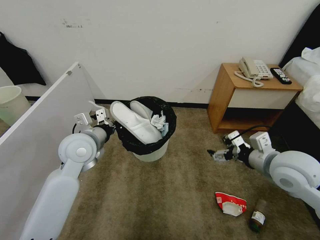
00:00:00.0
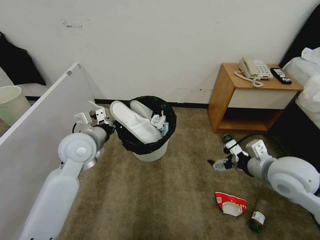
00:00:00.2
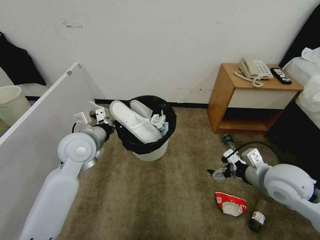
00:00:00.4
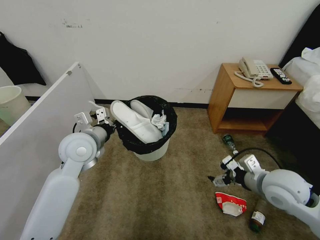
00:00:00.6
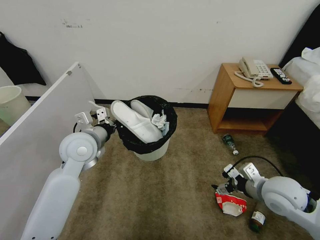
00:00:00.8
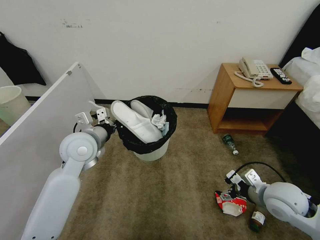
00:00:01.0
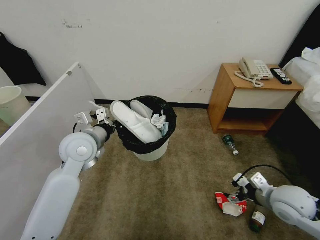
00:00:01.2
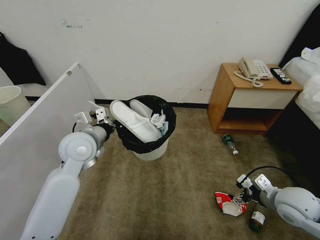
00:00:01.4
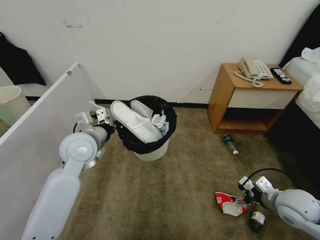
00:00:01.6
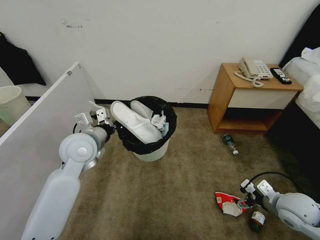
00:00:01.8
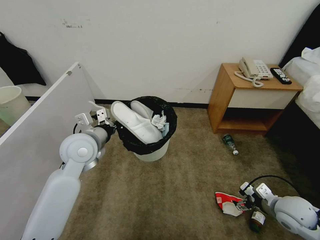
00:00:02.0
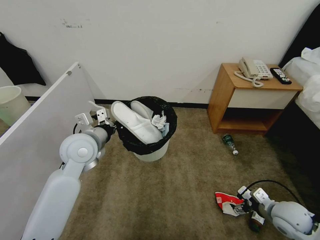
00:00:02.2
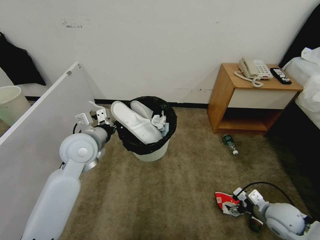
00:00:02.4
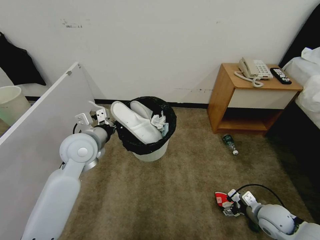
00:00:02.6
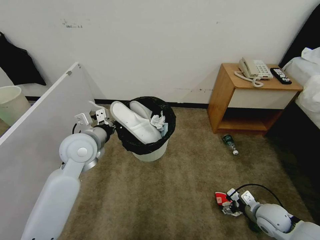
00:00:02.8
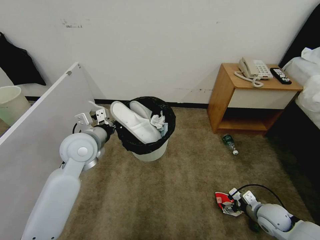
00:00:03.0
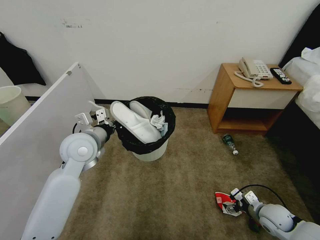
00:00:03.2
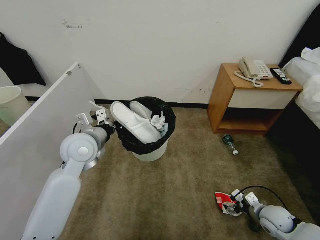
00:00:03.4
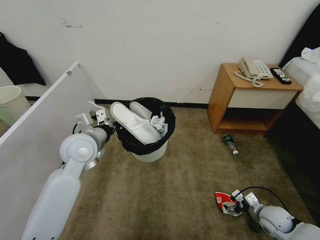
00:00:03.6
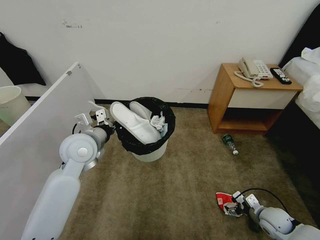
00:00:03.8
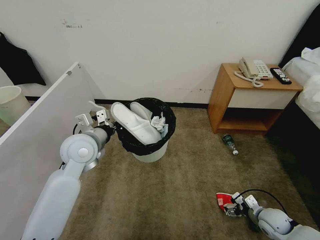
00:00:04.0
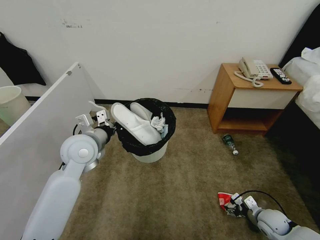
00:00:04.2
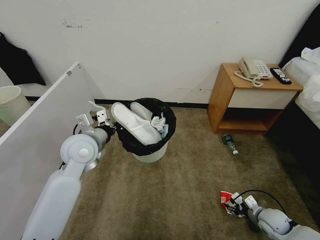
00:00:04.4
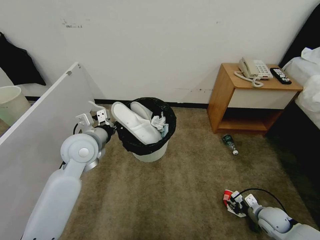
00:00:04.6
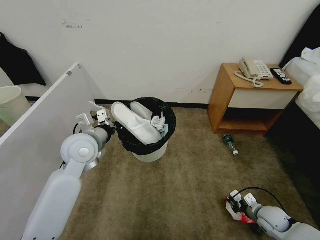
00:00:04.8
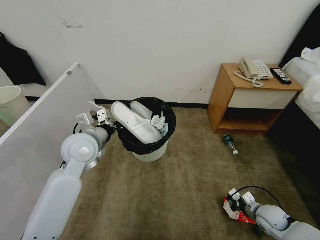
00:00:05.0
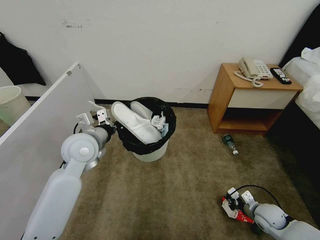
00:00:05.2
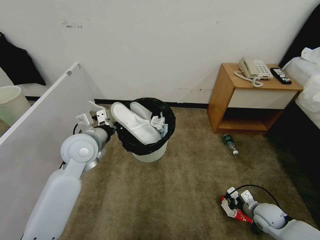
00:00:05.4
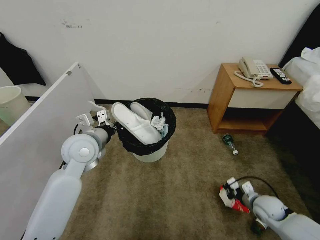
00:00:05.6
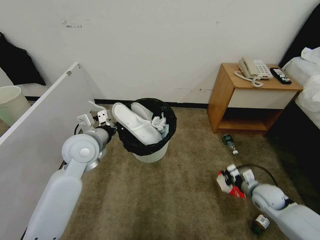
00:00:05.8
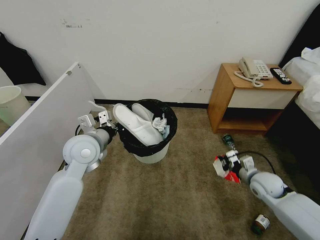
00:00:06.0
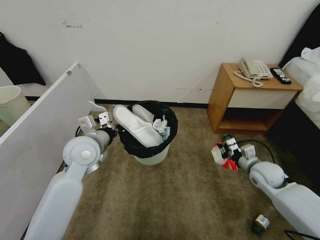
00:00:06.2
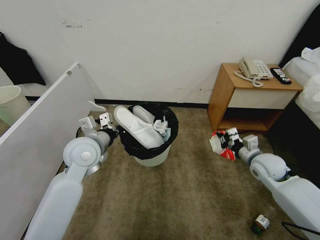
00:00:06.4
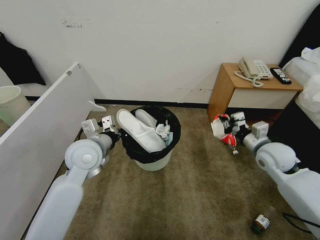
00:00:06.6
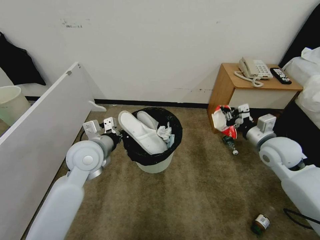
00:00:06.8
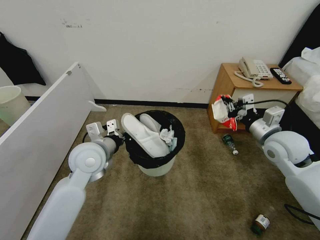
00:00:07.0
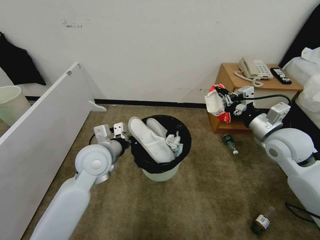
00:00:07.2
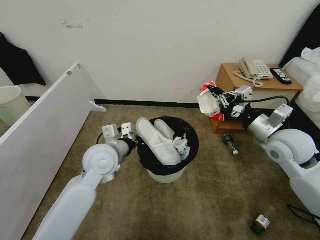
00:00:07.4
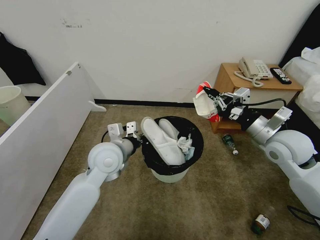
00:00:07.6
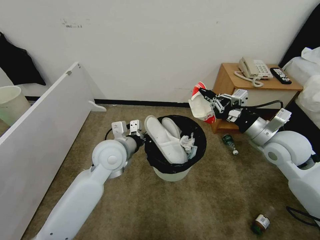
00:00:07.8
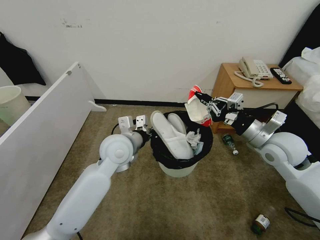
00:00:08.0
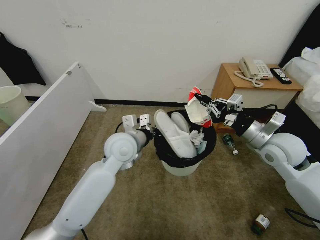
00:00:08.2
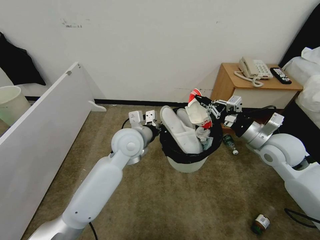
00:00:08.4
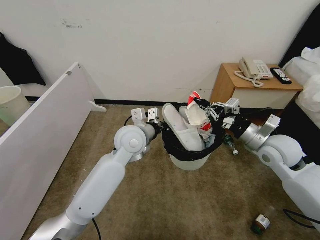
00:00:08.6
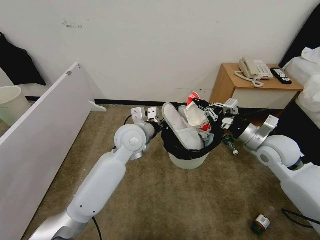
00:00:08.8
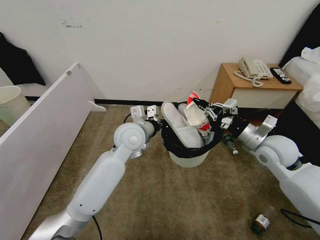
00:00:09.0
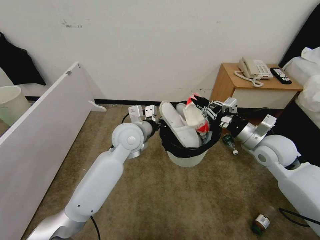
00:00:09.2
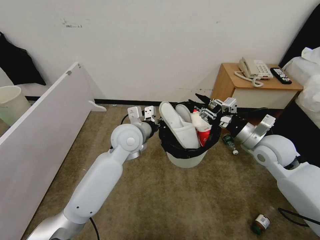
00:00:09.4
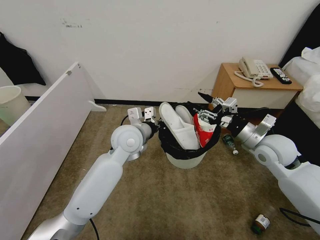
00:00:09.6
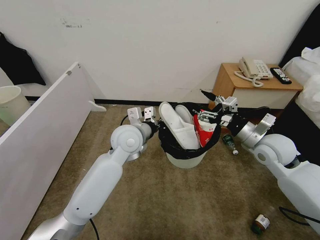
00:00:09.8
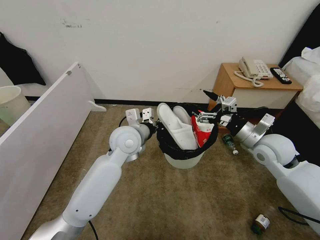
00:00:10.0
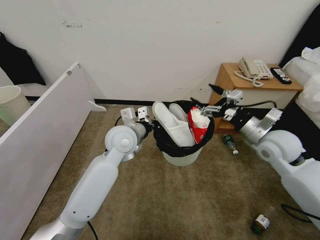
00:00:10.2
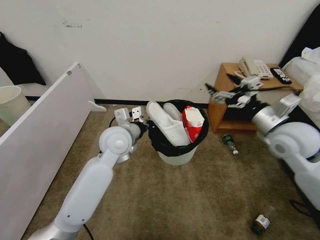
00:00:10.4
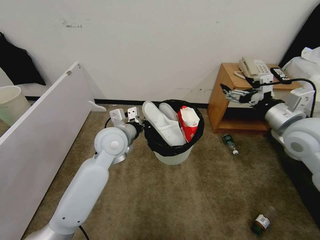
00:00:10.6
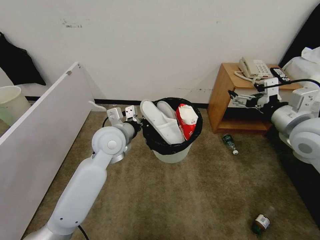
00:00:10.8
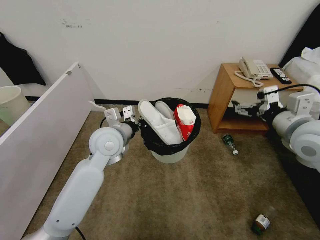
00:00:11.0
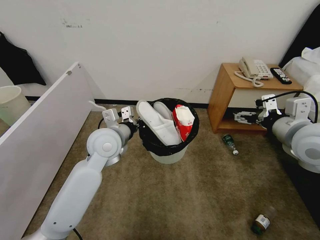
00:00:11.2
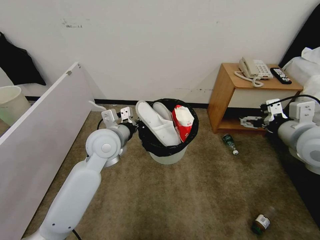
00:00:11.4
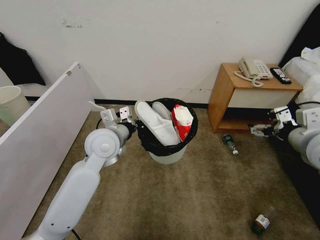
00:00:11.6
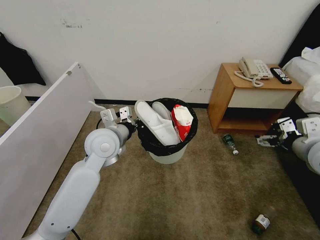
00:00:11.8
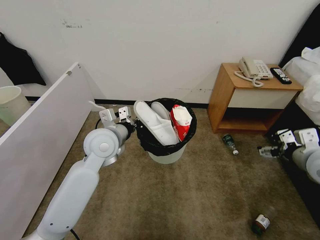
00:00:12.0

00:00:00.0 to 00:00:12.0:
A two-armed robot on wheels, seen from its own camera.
Task of the whole recording: Pick up the trash bin, then pick up the garbage from the floor and place it into the trash bin.
00:00:00.0 to 00:00:01.6: The right gripper shifts roughly 15 cm downward and to the right.
00:00:01.6 to 00:00:03.0: The right gripper goes about 15 cm downward.
00:00:03.0 to 00:00:04.4: The right gripper closes up.
00:00:04.4 to 00:00:06.0: The right gripper is displaced upward and forward by approximately 15 cm, and closes its fingers.
00:00:06.0 to 00:00:07.6: The left gripper is displaced to the right by roughly 5 cm, while the right gripper goes roughly 20 cm upward.
00:00:07.6 to 00:00:09.0: The left gripper travels to the right and forward by about 10 cm.
00:00:09.0 to 00:00:10.4: The right gripper moves upward, some 5 cm, and opens.
00:00:10.4 to 00:00:12.0: The right gripper goes roughly 10 cm to the right and backward.

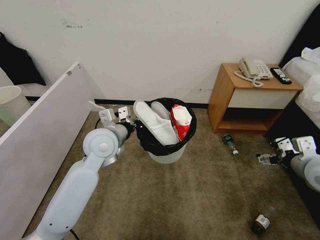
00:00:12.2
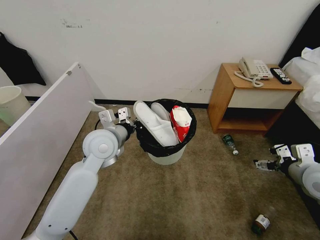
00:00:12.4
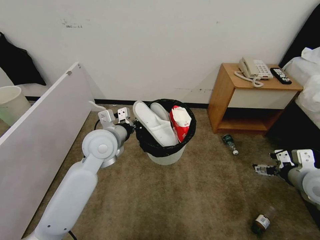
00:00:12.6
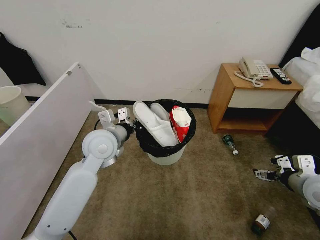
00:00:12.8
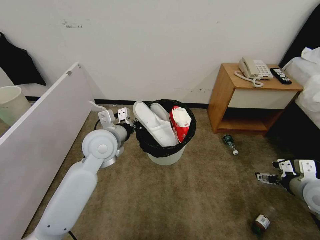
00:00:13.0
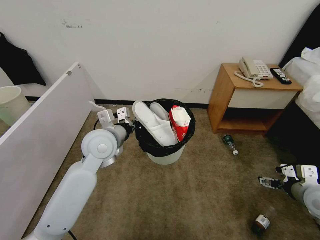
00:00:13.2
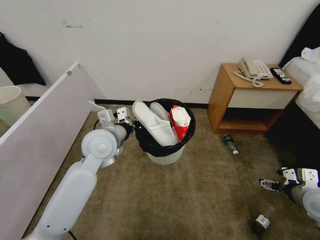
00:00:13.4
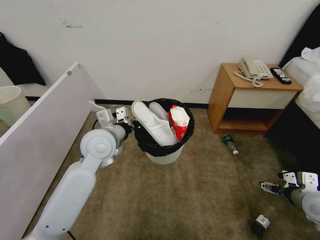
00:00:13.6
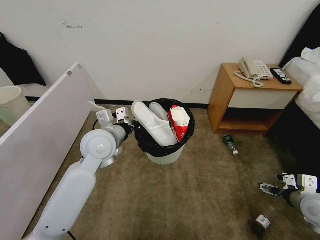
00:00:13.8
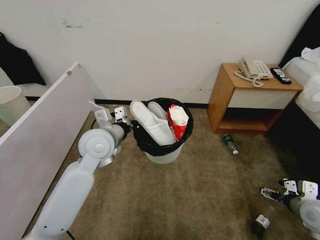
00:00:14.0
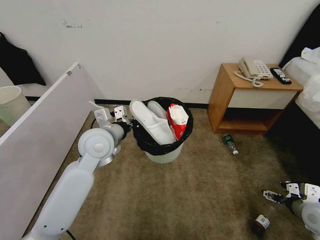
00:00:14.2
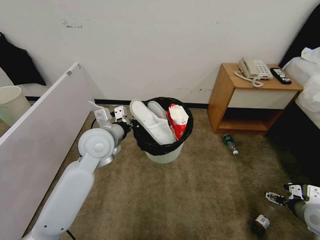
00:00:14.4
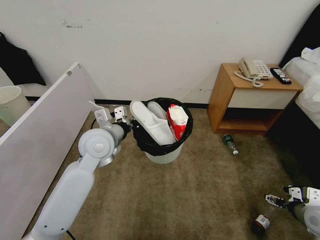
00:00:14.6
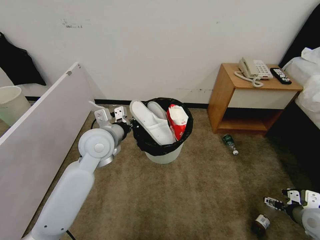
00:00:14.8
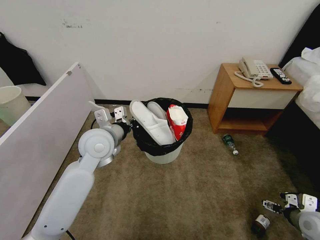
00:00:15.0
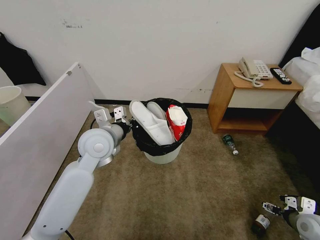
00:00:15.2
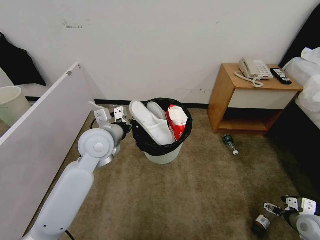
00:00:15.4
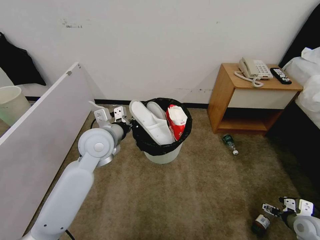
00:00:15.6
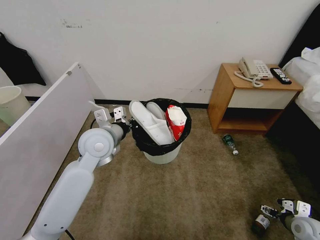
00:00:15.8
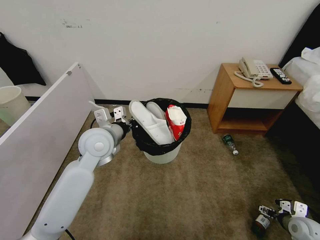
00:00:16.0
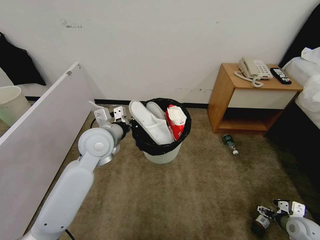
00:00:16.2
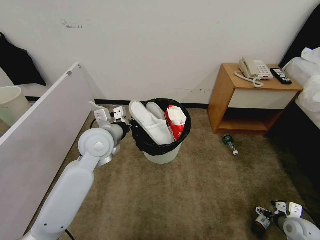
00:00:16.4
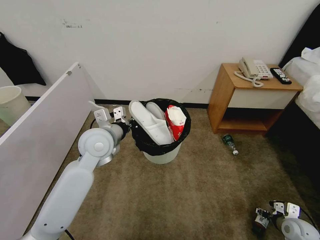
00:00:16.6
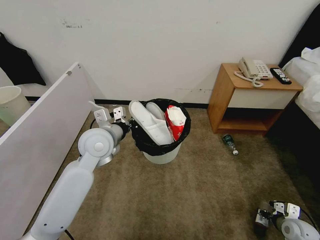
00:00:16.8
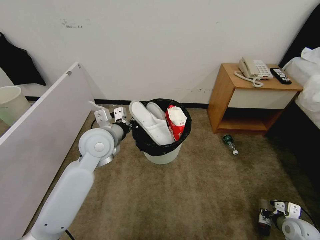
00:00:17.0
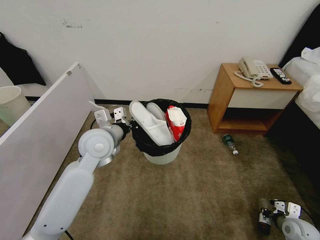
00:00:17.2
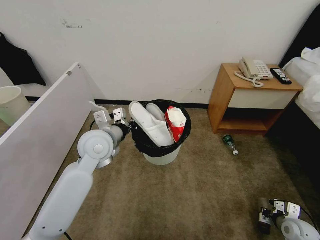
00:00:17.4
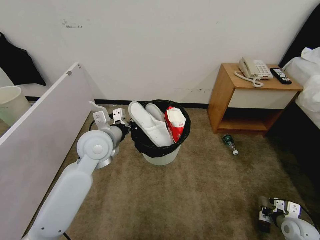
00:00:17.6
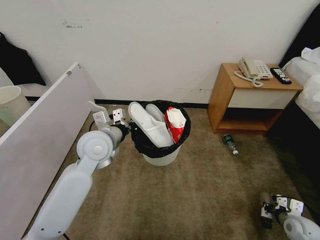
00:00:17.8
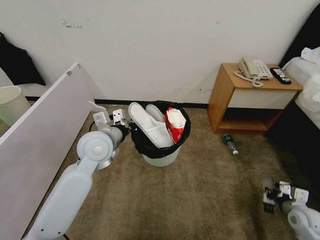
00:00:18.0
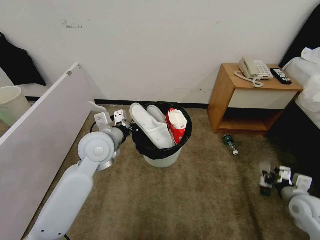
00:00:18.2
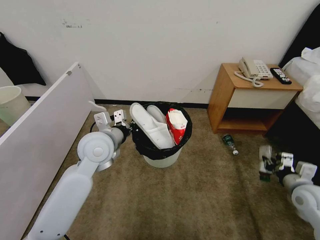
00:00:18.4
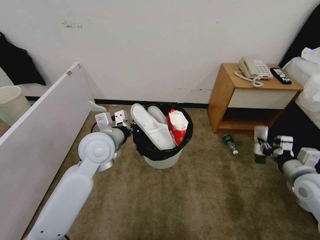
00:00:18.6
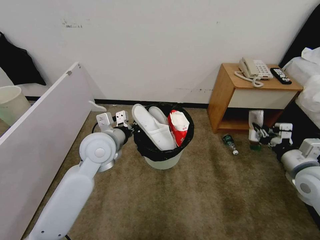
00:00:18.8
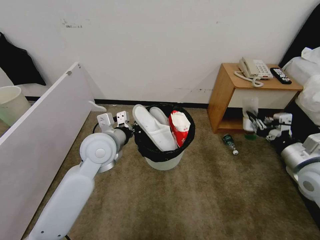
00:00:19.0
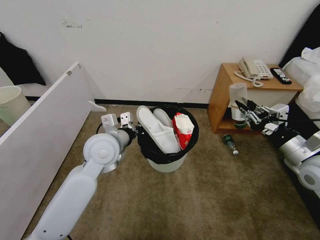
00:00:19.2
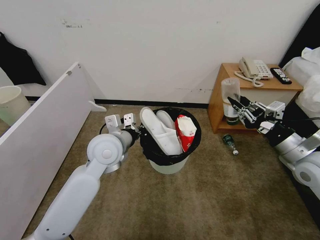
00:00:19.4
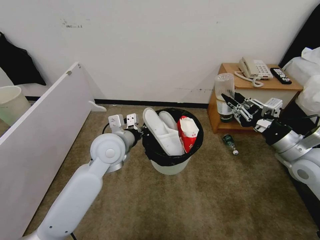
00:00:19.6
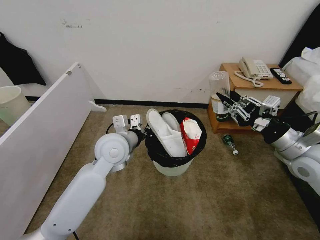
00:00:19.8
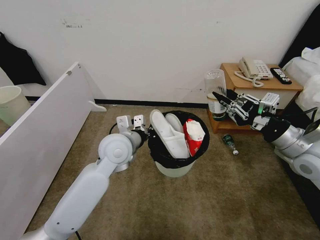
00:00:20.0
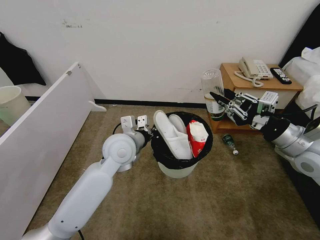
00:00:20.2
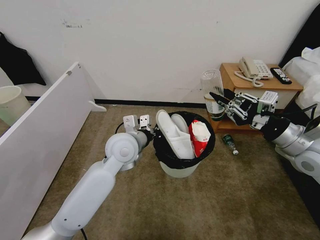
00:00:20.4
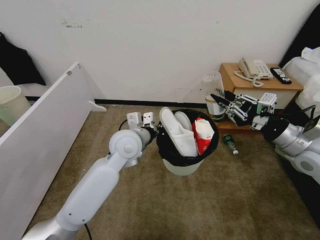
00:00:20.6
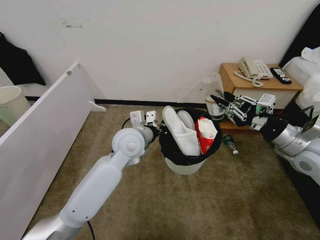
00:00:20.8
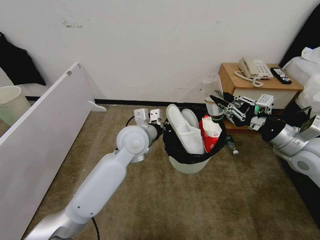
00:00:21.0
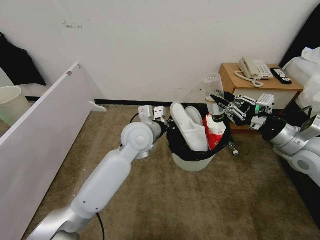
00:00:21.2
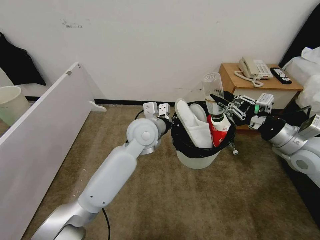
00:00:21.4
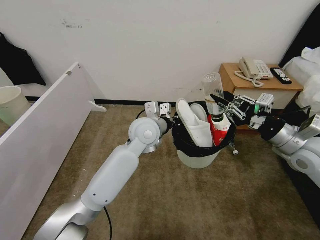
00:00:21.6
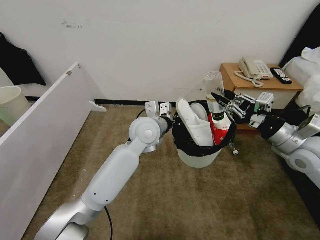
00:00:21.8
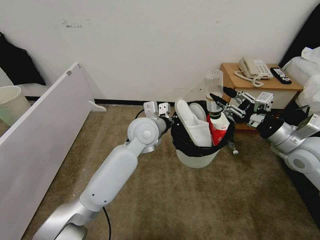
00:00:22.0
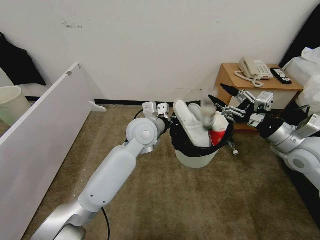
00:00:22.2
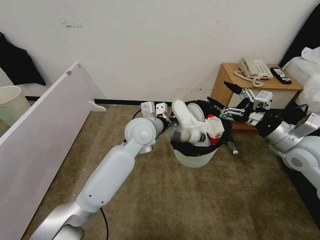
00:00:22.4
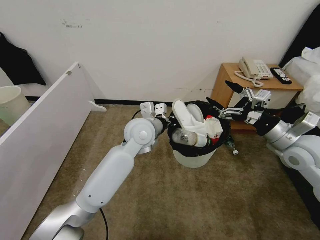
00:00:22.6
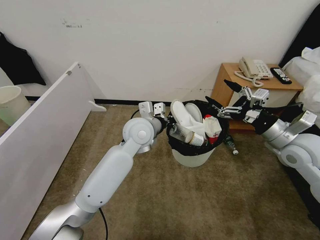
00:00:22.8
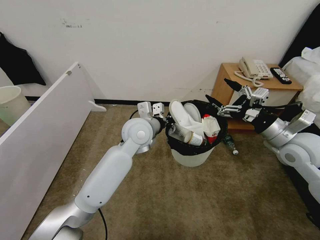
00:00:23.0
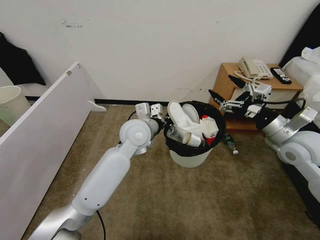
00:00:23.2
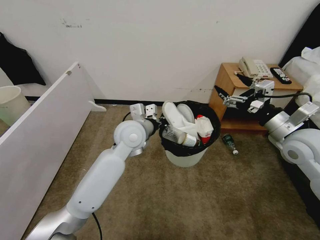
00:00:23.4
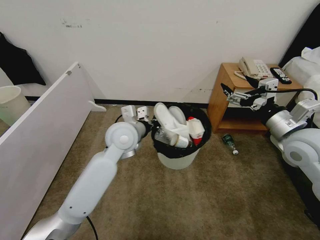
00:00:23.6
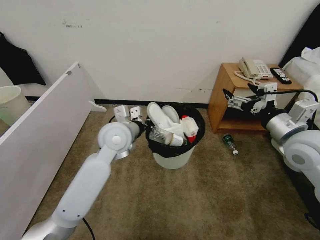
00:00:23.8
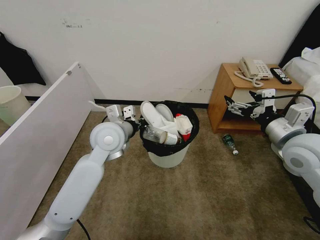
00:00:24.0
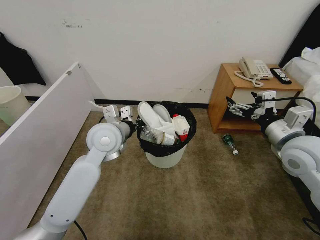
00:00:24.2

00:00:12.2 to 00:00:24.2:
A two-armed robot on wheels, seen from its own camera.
Task of the whole recording: Pick up the trash bin, then pick up the garbage from the floor and place it into the trash bin.
00:00:12.2 to 00:00:13.8: The right gripper heads downward, covering roughly 10 cm.
00:00:13.8 to 00:00:15.2: The right gripper is displaced downward by roughly 10 cm.
00:00:15.2 to 00:00:16.6: The right gripper moves downward, about 5 cm.
00:00:16.6 to 00:00:18.2: The right gripper is displaced upward by approximately 10 cm, and closes its fingers.
00:00:18.2 to 00:00:19.8: The right gripper goes some 20 cm upward and to the left.
00:00:19.8 to 00:00:21.2: The left gripper travels to the right by about 5 cm.
00:00:21.2 to 00:00:22.6: The right gripper opens its fingers.
00:00:22.6 to 00:00:24.2: The left gripper heads to the left, covering roughly 10 cm.
